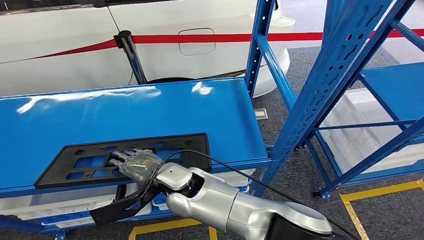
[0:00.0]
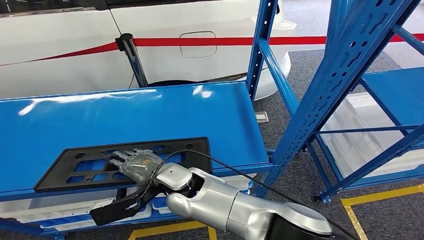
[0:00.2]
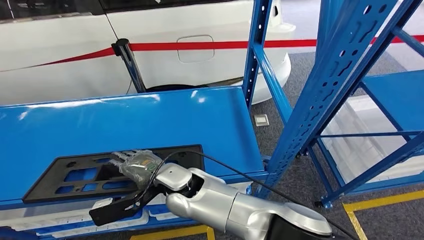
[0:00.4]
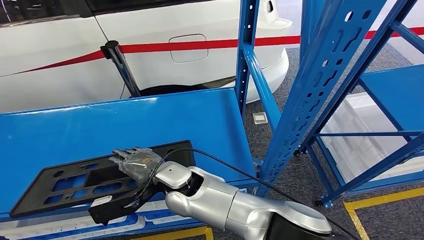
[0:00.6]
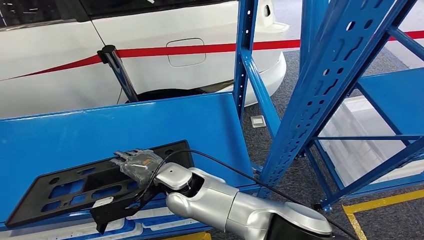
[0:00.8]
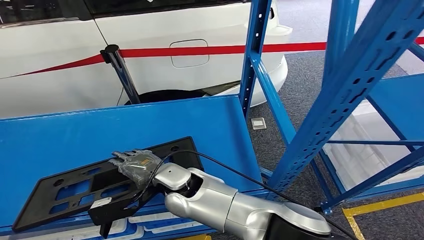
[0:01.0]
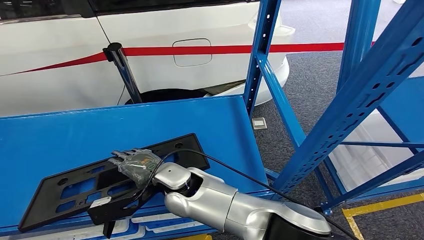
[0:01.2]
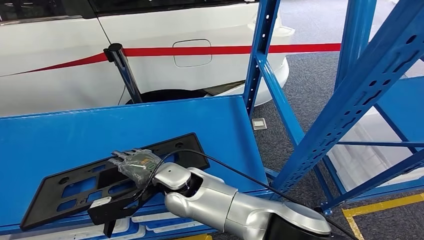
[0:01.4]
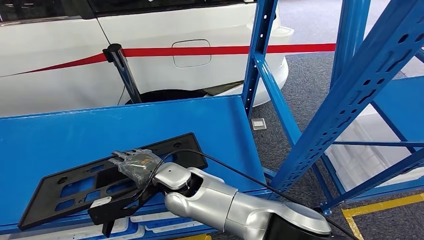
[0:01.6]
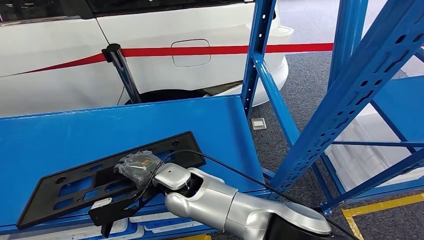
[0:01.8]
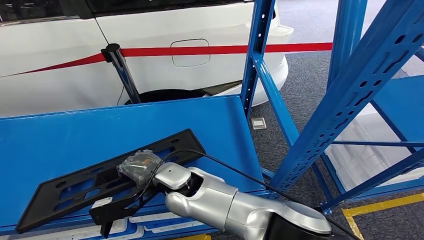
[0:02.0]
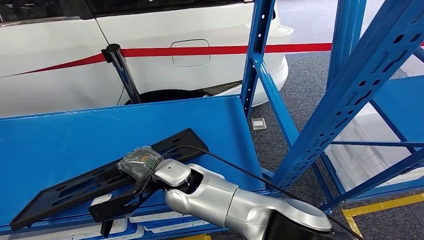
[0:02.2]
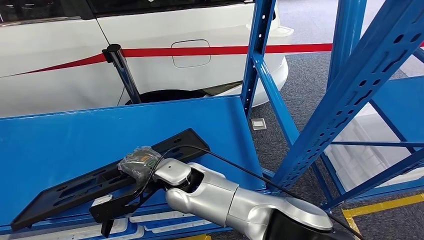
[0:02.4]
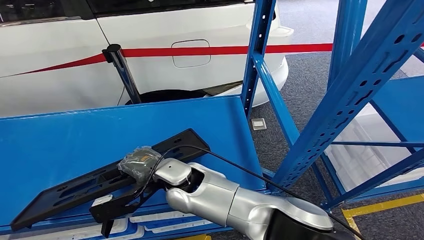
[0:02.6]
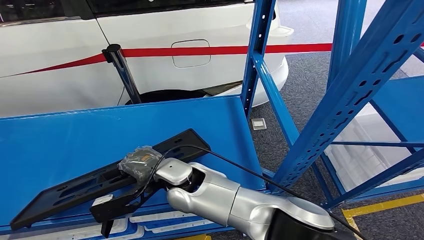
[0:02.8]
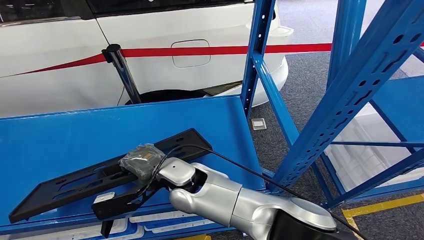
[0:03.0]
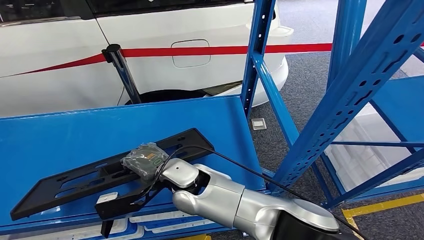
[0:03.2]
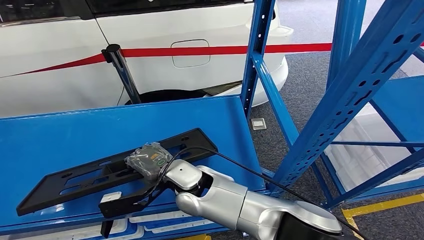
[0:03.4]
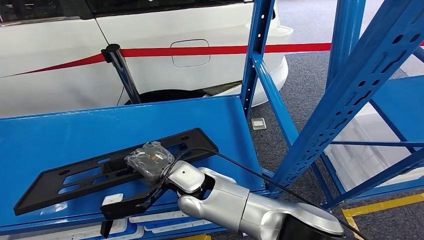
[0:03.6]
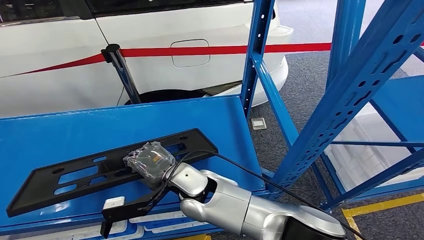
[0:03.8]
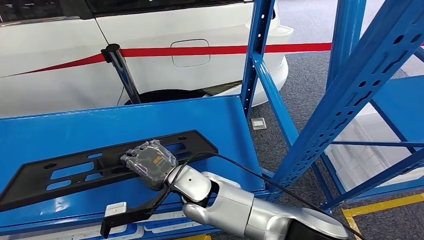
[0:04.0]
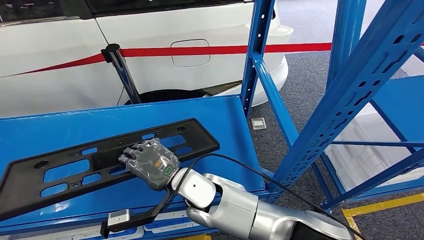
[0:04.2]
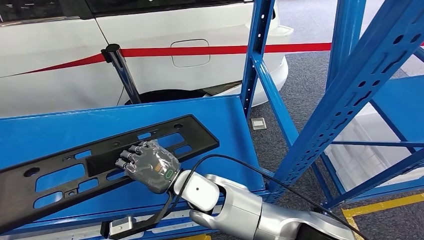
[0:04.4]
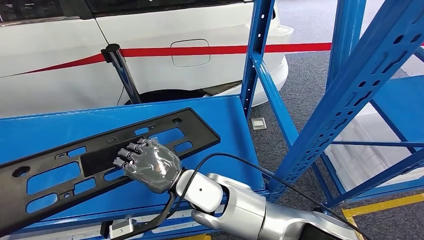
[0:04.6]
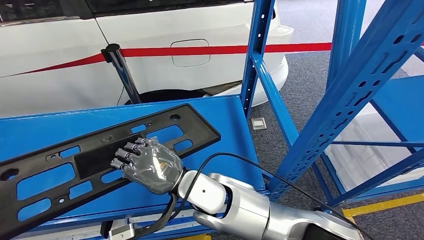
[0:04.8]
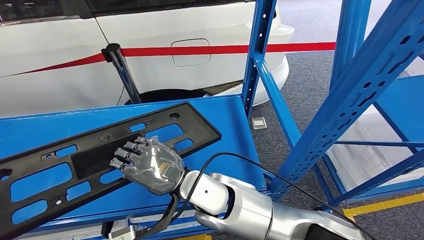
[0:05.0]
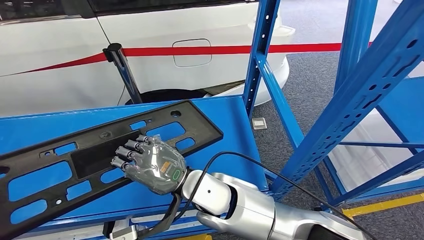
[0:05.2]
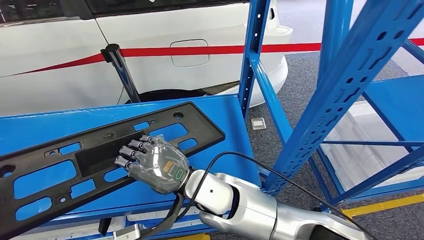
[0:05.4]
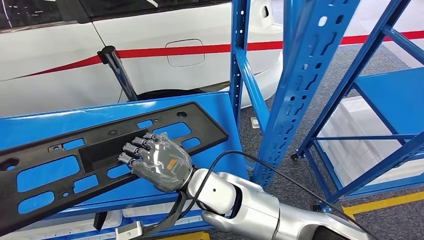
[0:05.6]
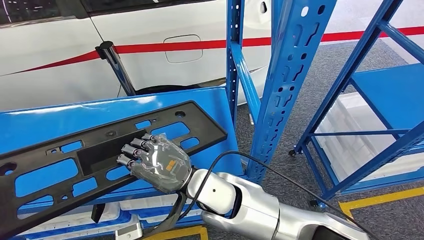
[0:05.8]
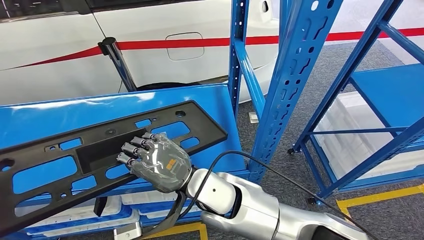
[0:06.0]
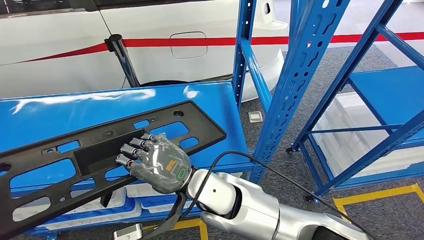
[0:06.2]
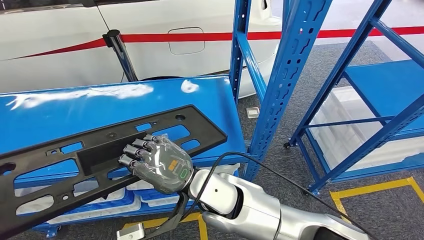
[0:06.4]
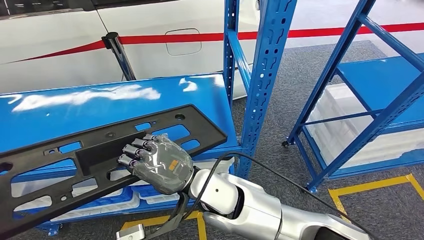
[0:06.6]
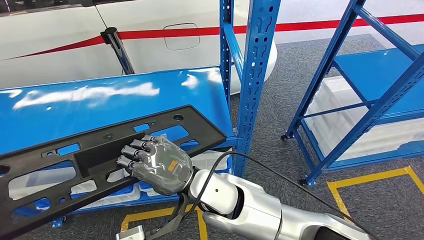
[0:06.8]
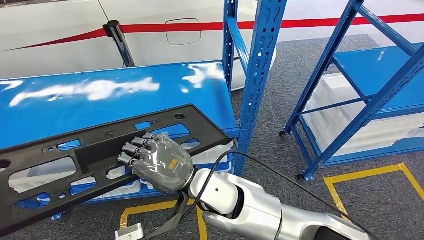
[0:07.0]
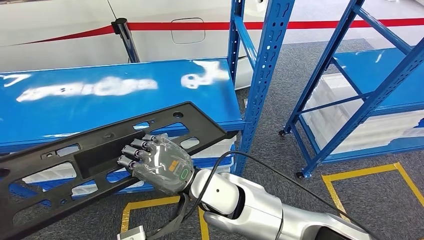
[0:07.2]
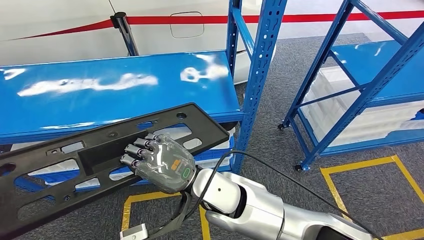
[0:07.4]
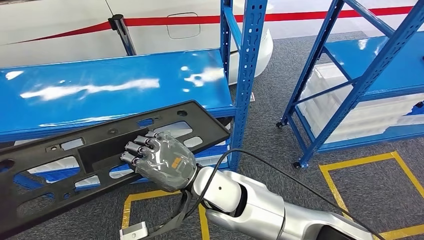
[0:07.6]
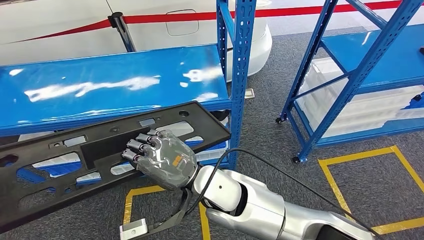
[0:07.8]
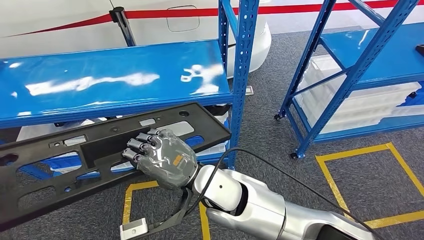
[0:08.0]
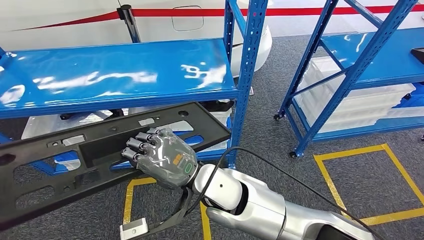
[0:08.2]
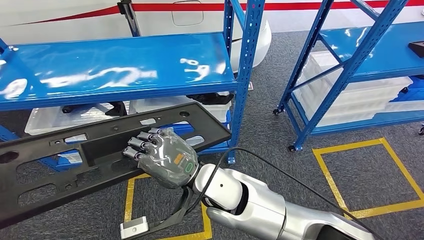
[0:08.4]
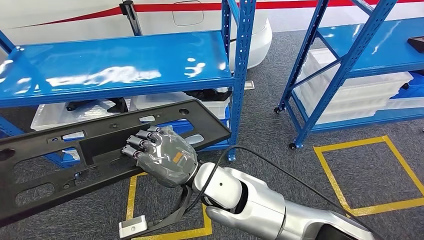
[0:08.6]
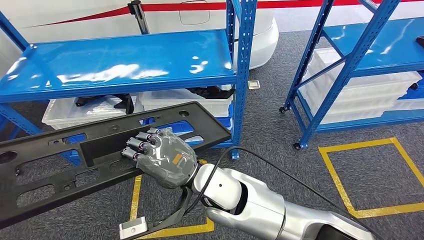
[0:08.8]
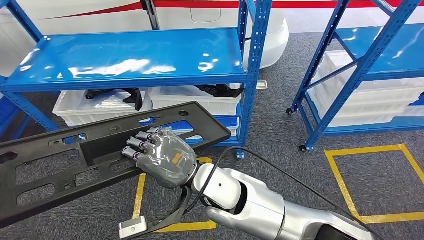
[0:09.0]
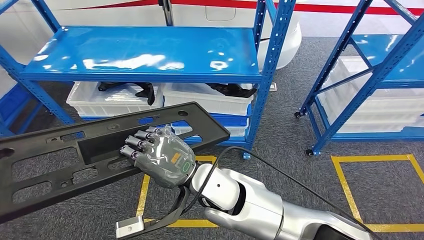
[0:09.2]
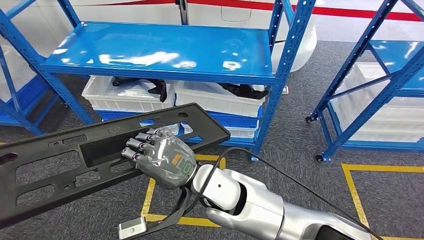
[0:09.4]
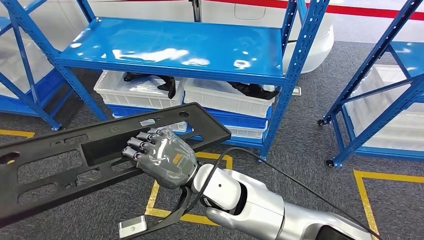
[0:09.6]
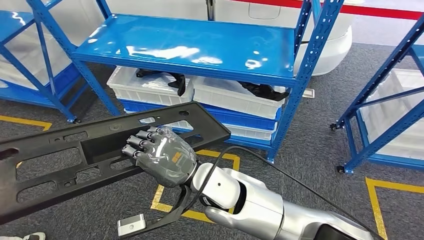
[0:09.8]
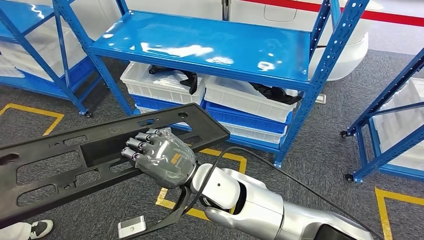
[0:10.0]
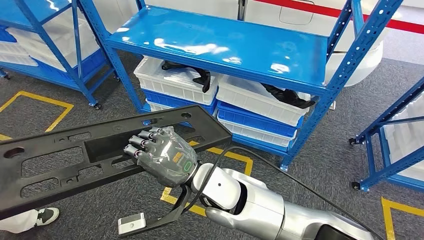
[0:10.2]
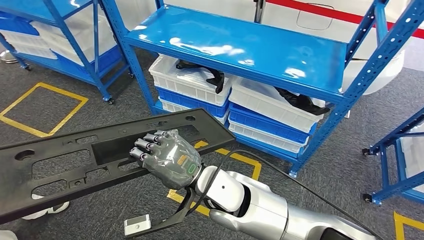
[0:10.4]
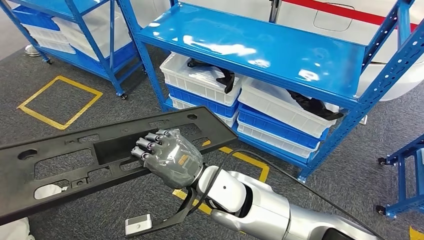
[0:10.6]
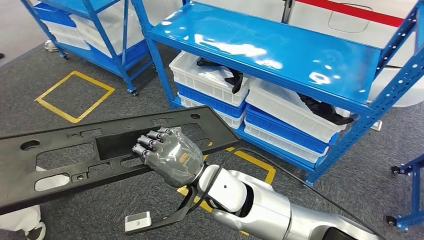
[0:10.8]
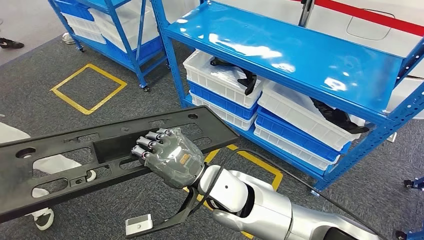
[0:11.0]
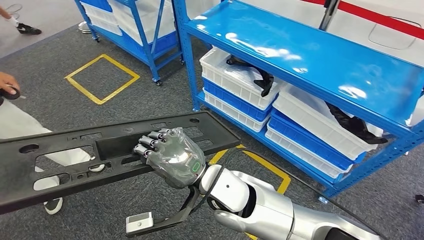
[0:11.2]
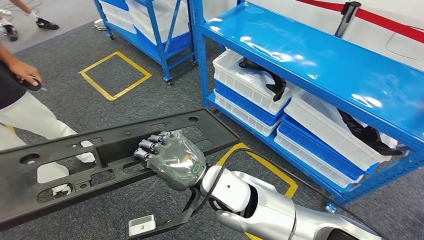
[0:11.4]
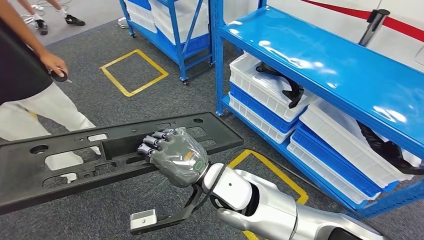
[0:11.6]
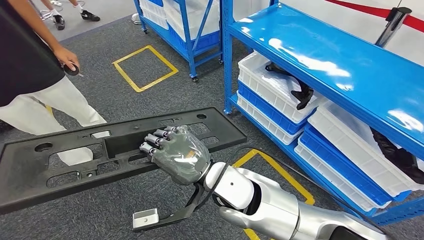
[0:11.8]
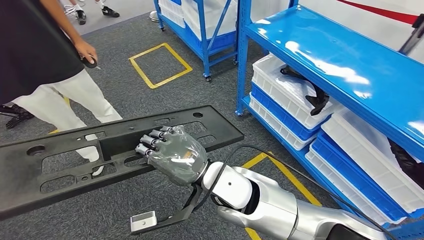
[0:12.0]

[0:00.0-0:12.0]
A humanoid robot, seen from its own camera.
Step, 0:00.0 to 0:04.2: Pick up the large material from the shelf.
0:01.6 to 0:03.0: The hands stay close to where they were, moving slightly.

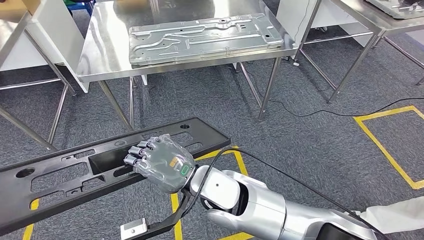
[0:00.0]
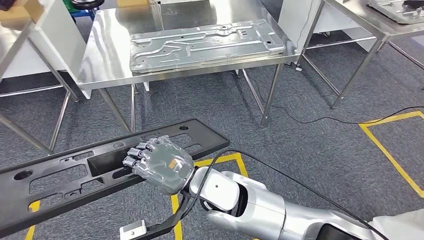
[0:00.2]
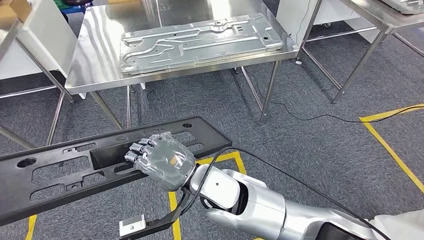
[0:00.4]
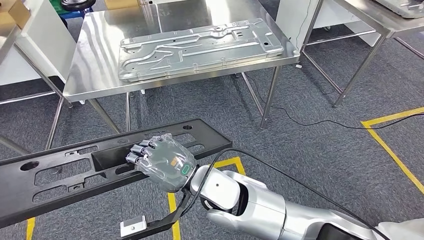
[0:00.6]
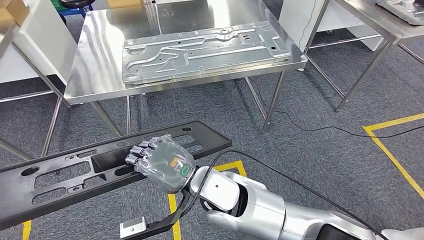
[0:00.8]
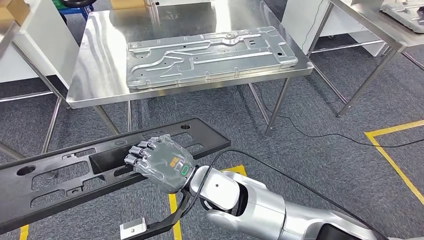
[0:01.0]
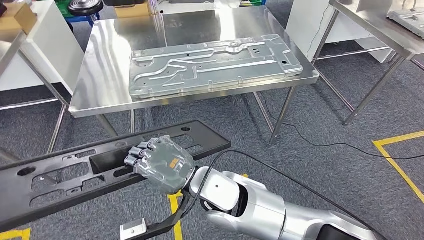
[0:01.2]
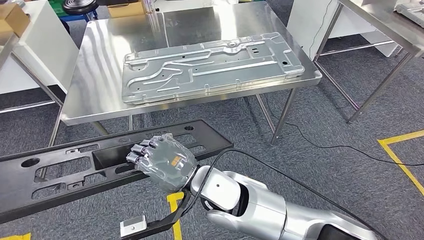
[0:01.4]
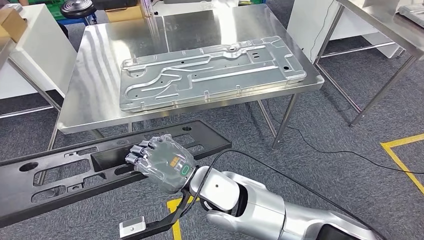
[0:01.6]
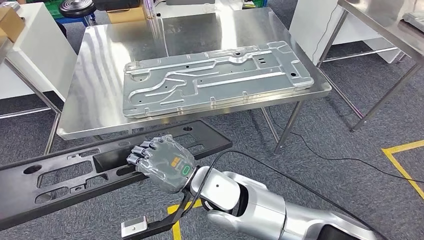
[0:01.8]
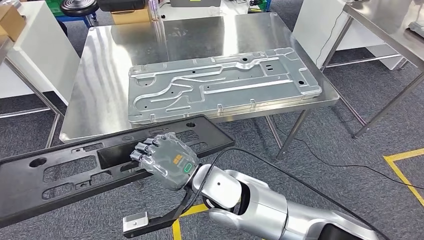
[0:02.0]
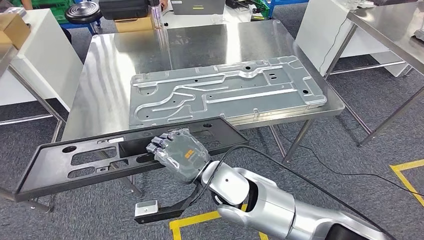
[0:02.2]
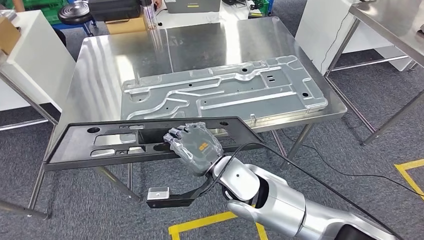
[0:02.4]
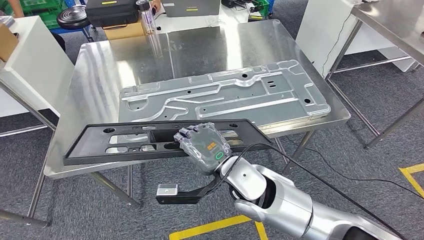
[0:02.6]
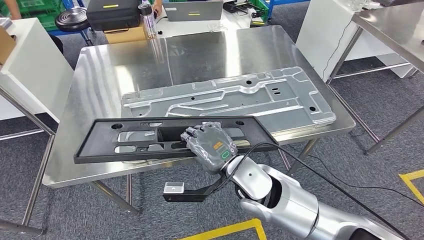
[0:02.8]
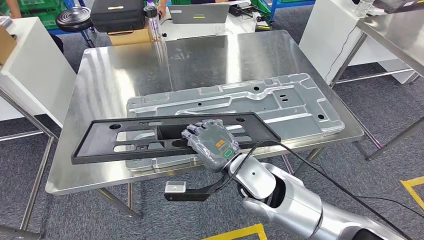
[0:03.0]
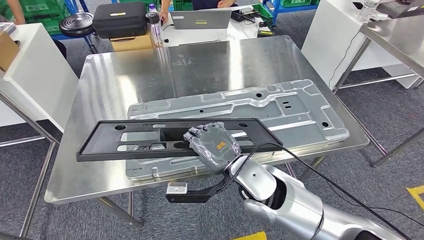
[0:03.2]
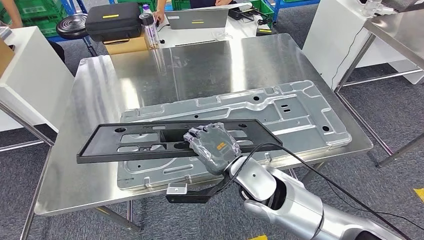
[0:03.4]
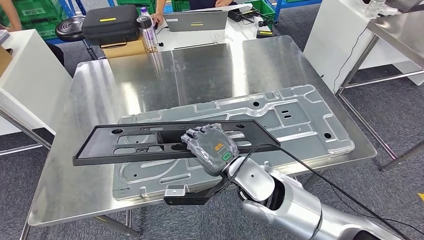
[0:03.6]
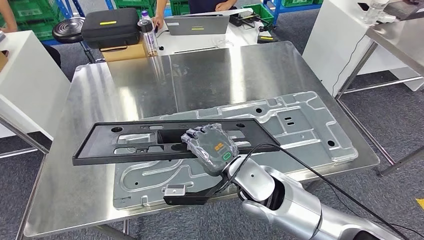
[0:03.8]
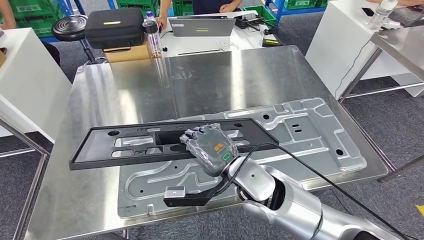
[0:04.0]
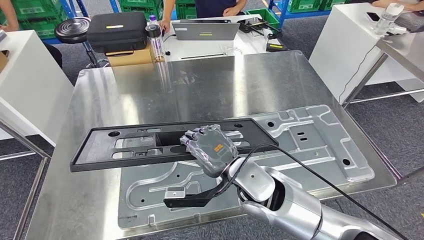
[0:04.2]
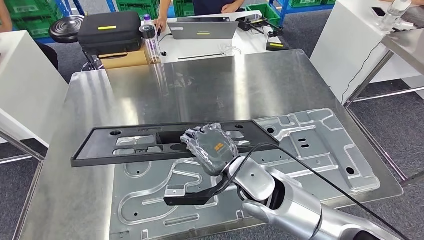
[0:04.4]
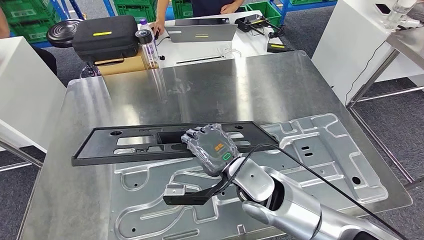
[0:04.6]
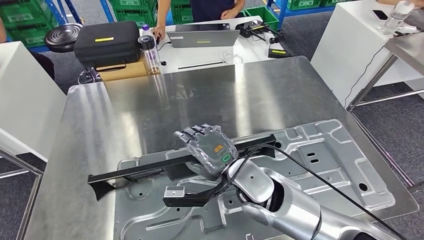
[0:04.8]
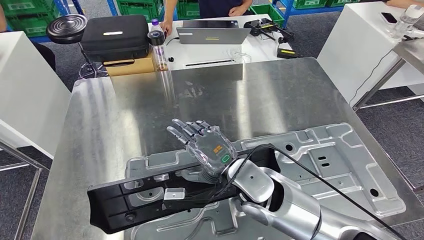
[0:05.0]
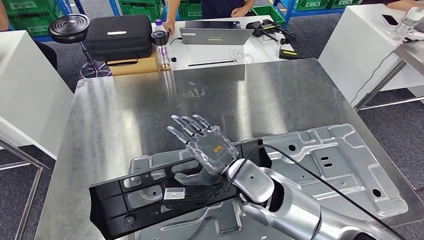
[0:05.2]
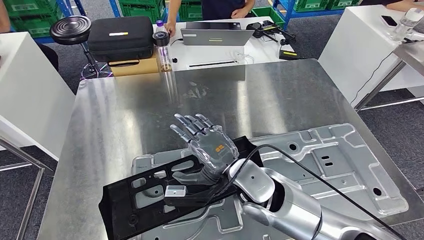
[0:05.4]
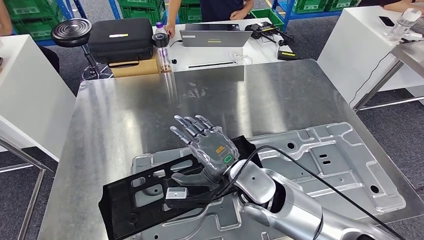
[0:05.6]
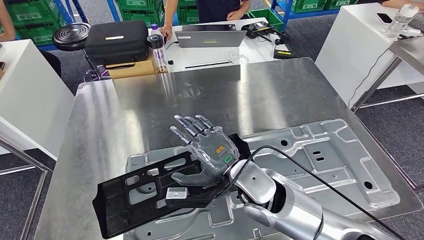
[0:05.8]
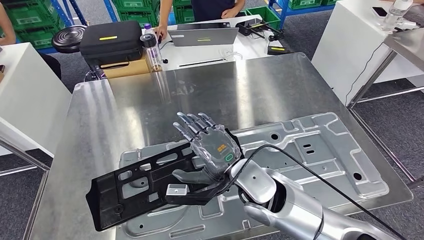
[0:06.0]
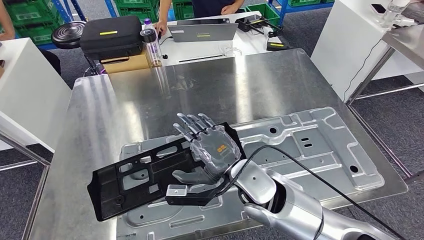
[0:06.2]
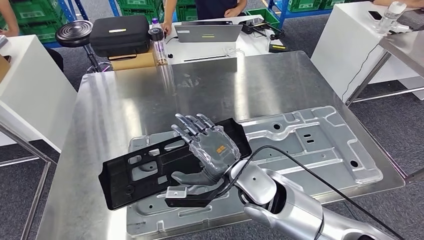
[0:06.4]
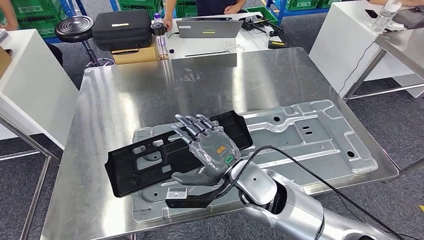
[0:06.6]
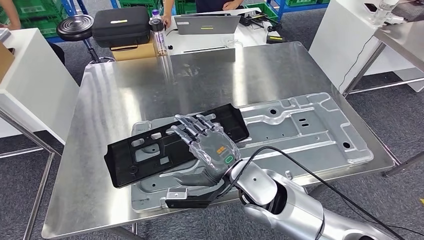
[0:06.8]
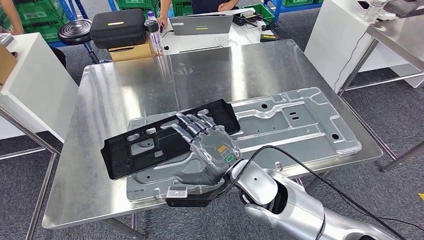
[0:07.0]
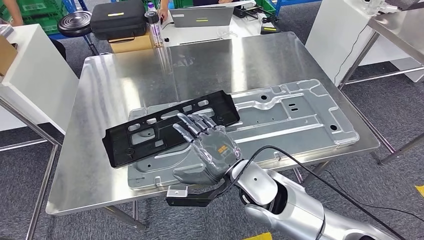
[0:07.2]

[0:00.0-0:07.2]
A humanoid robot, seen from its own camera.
Step, 0:00.0 to 0:03.0: Move the large material to the front of the workbench.
